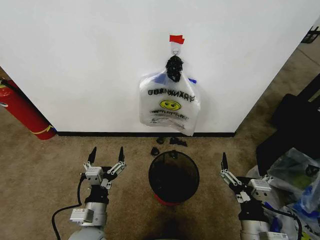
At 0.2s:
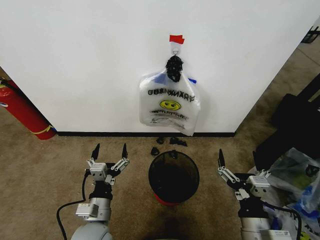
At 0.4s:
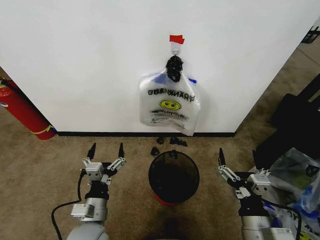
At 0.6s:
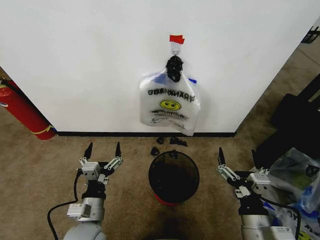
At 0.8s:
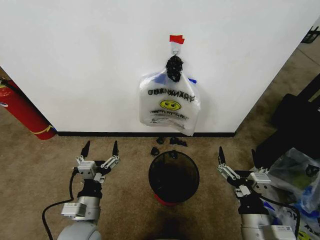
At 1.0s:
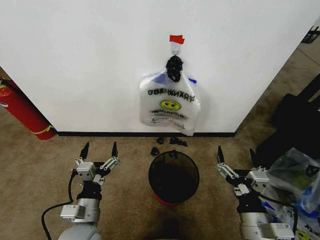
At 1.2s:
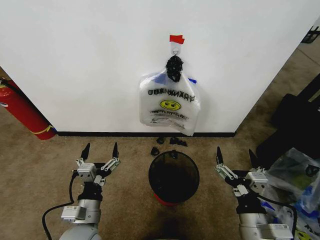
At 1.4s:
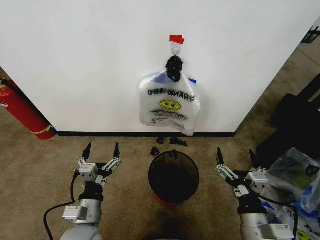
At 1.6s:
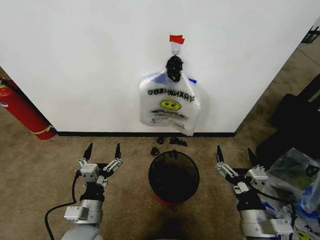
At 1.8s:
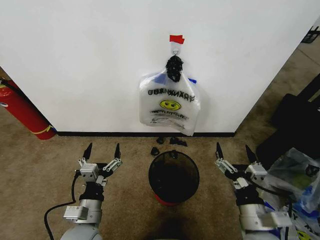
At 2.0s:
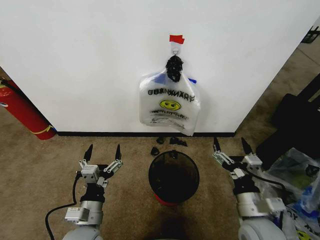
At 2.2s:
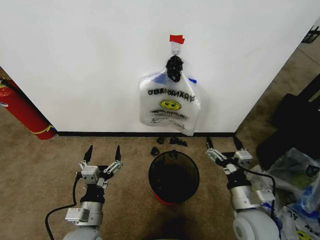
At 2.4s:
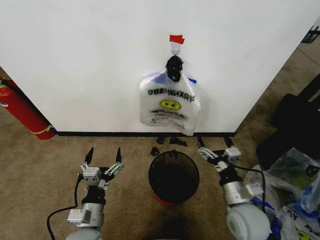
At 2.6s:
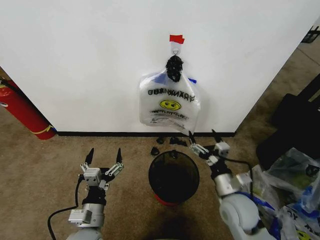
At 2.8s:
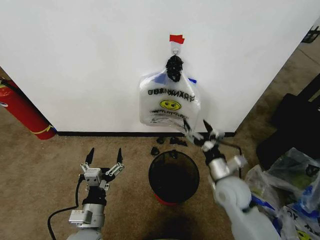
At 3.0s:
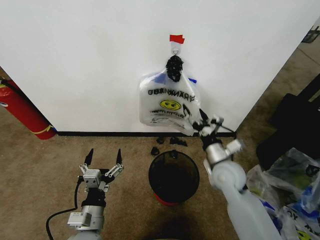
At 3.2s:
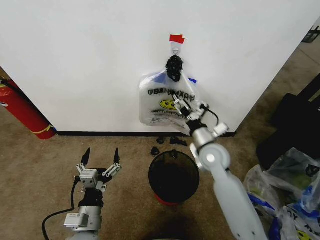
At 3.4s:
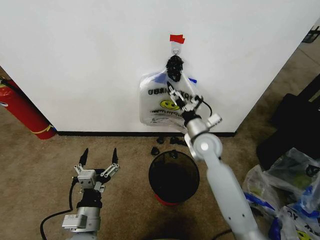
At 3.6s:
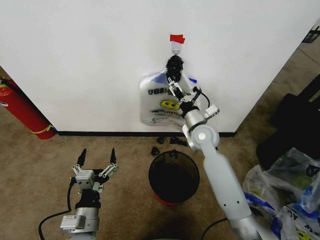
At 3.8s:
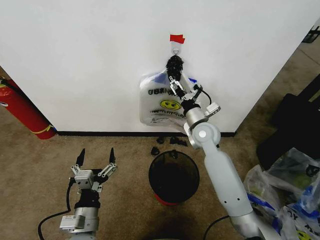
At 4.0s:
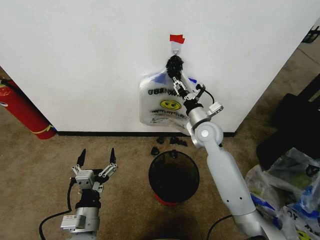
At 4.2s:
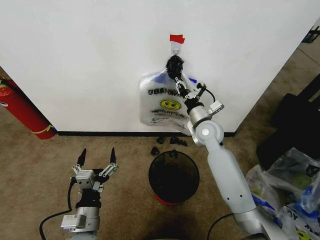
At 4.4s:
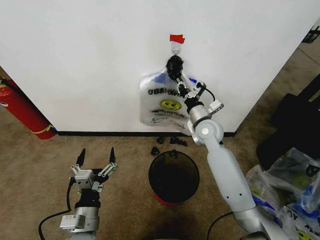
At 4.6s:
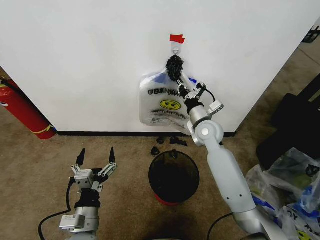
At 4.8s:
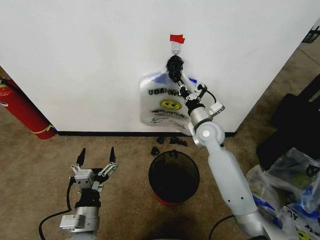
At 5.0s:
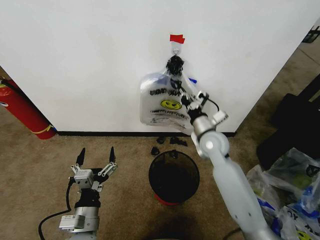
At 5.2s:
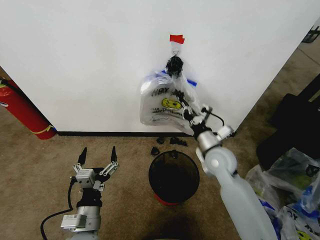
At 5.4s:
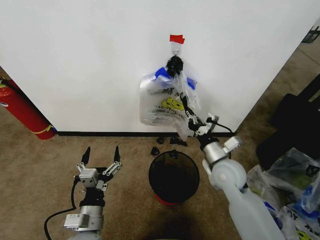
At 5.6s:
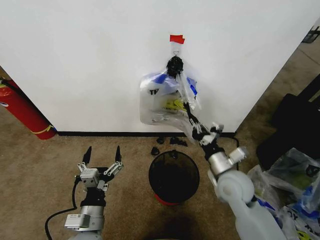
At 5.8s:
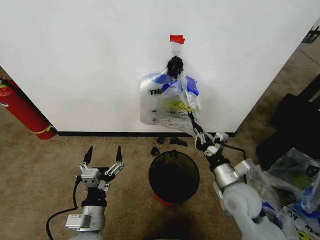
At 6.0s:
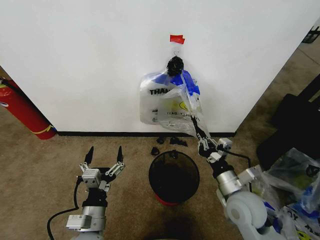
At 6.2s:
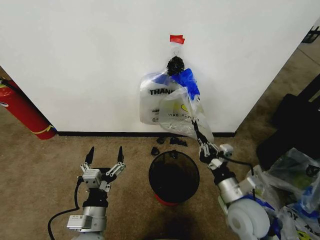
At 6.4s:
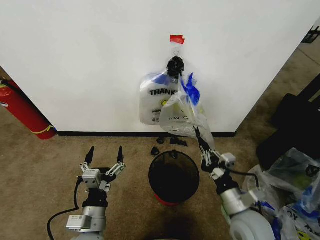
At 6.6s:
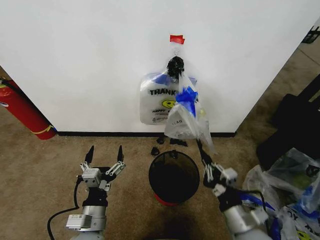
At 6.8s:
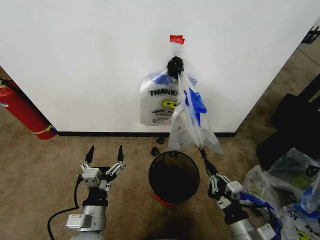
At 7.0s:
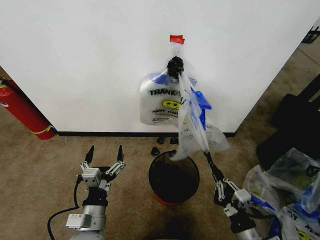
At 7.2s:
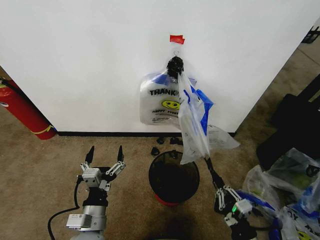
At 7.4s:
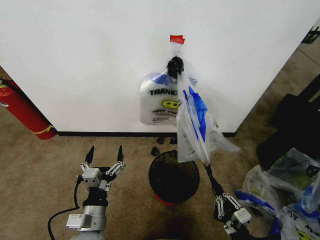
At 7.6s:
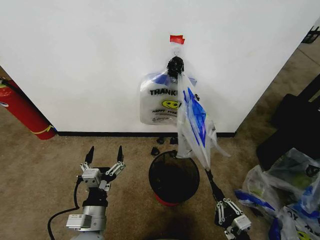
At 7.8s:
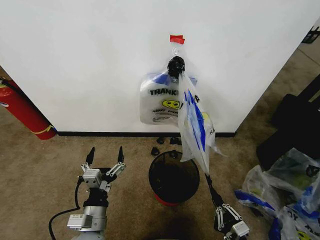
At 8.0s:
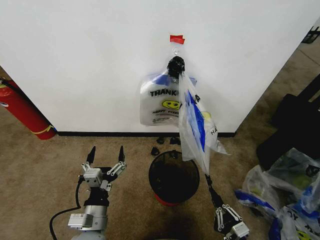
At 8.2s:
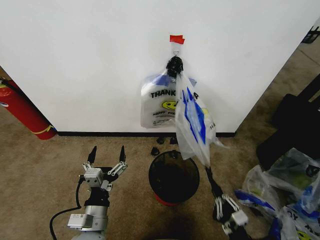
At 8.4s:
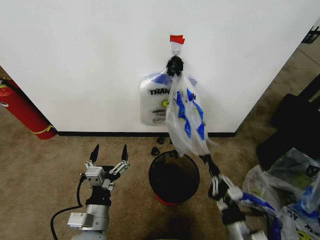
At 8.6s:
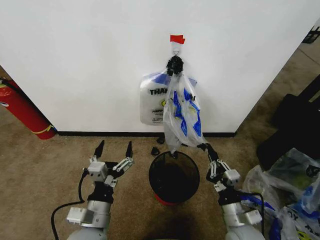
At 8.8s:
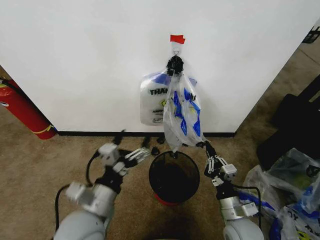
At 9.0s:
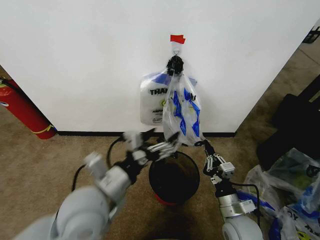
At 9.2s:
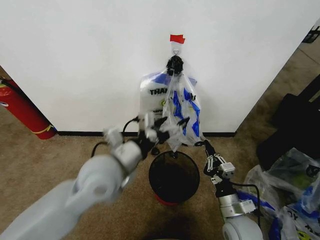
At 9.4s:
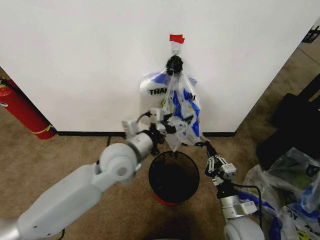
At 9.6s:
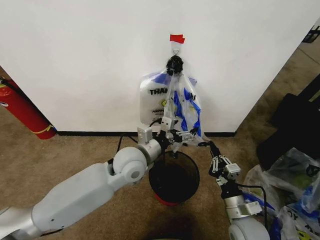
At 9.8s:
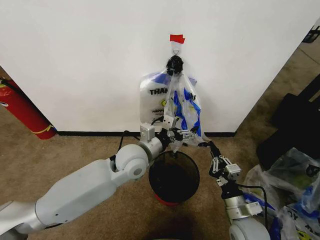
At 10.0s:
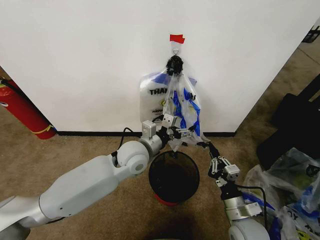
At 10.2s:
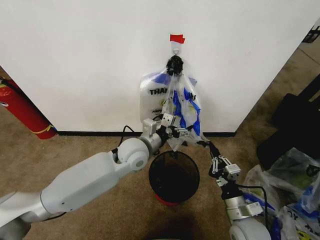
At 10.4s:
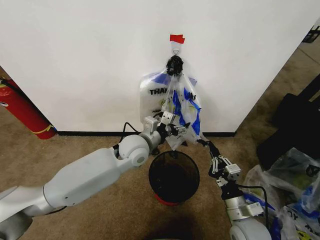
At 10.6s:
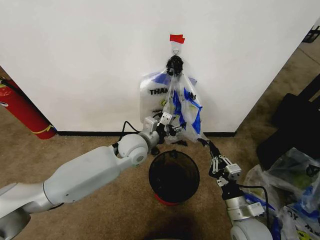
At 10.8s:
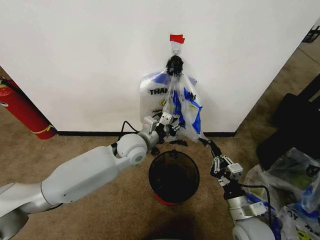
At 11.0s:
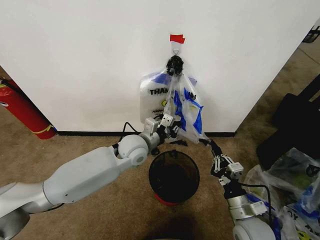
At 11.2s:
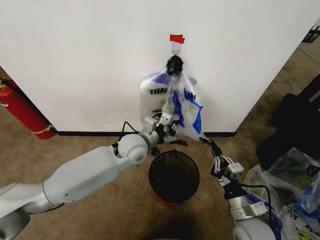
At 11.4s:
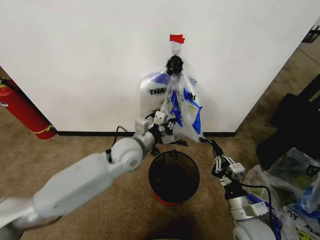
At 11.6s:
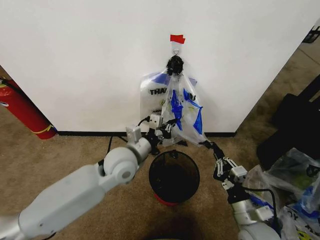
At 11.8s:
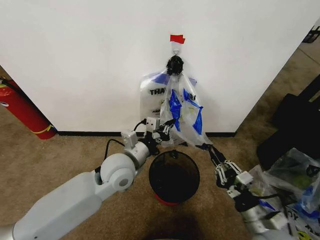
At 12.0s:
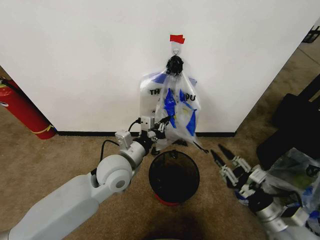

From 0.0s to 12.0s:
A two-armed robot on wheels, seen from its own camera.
Task of the whole recording: Pick up the garbage bag from the wall and place it over the trash bin.
From 1.6s to 3.0s: The right gripper heads forward, covering approximately 20 cm.
From 3.0s to 4.4s: The right gripper moves forward, approximately 15 cm, and closes.
From 4.4s to 6.0s: The right gripper heads backward, covering about 20 cm.
From 6.0s to 7.6s: The right gripper goes about 20 cm backward and downward.
From 7.6s to 9.0s: The right gripper heads forward, covering roughly 15 cm; the left gripper moves upward, roughly 15 cm.
From 9.0s to 10.4s: The left gripper heads forward, covering roughly 20 cm.
From 10.4s to 12.0s: The left gripper moves backward, some 10 cm, and closes. Meanwhile the right gripper travels to the right by roughly 10 cm.

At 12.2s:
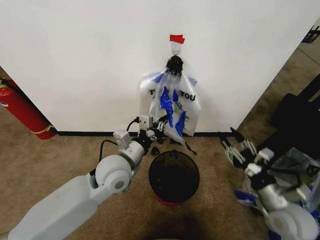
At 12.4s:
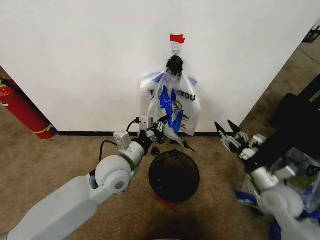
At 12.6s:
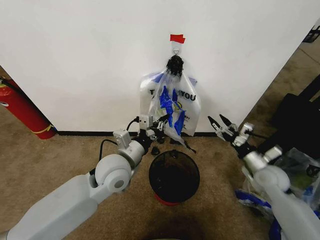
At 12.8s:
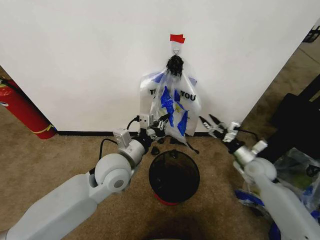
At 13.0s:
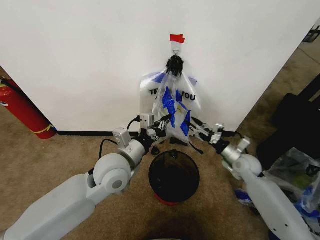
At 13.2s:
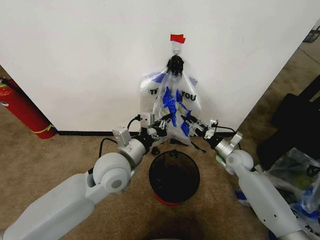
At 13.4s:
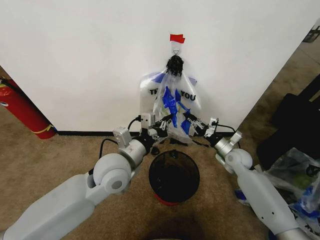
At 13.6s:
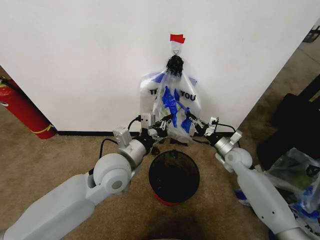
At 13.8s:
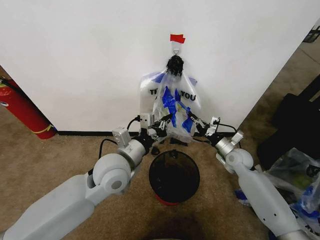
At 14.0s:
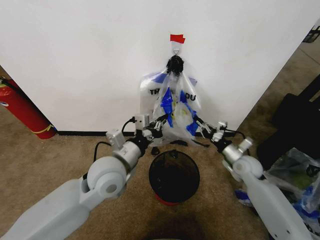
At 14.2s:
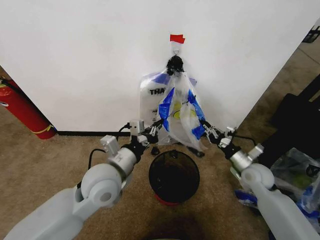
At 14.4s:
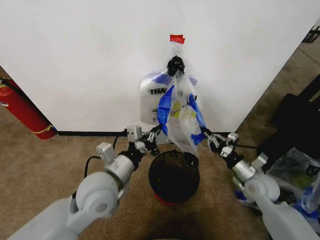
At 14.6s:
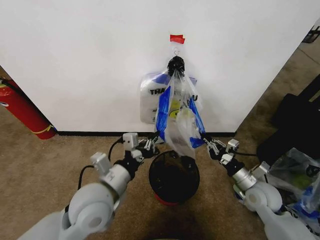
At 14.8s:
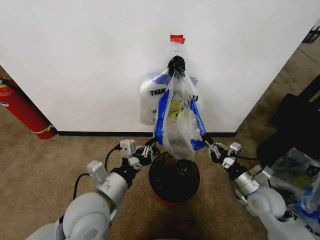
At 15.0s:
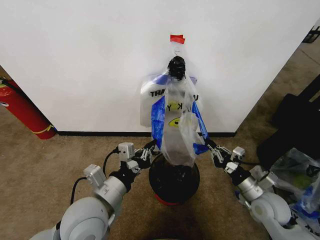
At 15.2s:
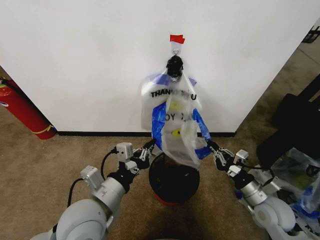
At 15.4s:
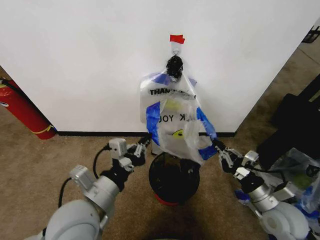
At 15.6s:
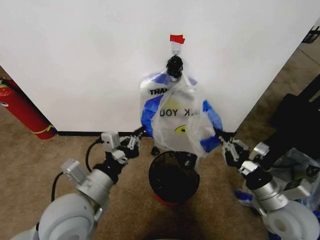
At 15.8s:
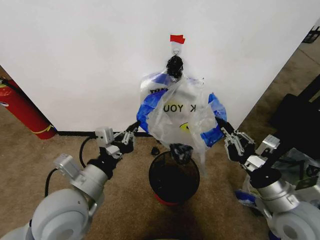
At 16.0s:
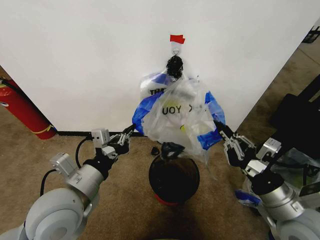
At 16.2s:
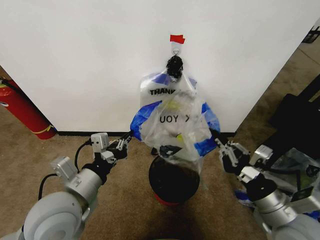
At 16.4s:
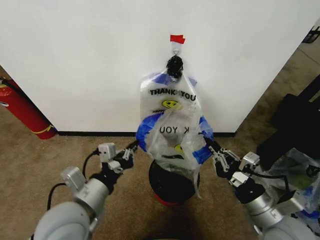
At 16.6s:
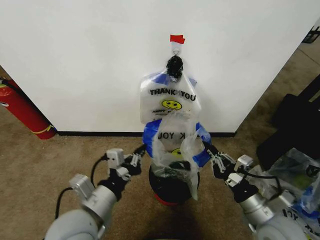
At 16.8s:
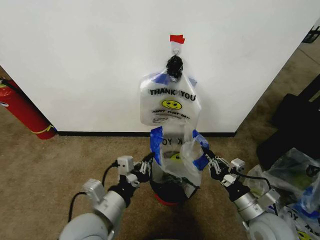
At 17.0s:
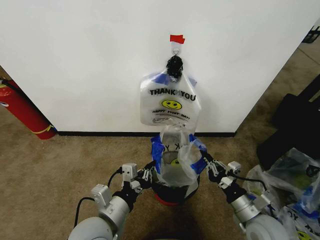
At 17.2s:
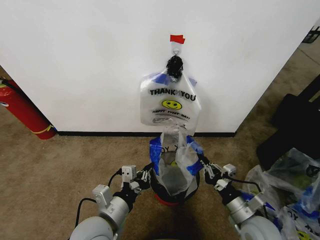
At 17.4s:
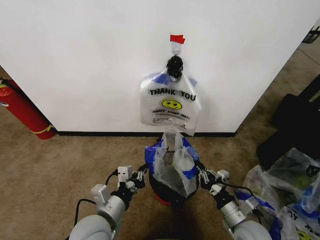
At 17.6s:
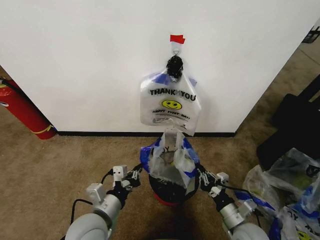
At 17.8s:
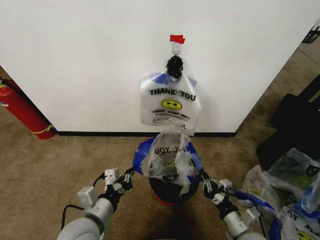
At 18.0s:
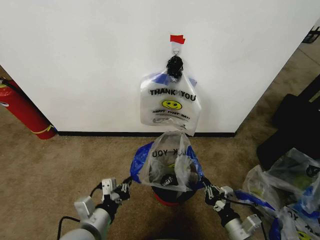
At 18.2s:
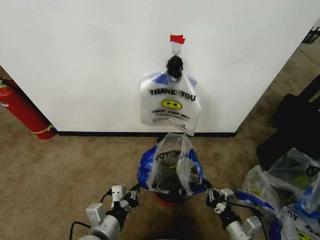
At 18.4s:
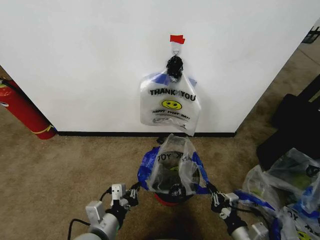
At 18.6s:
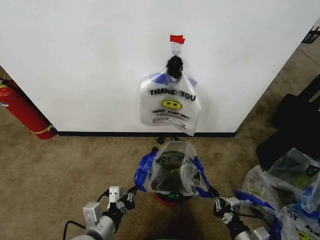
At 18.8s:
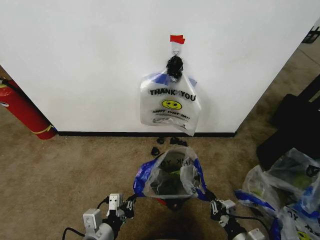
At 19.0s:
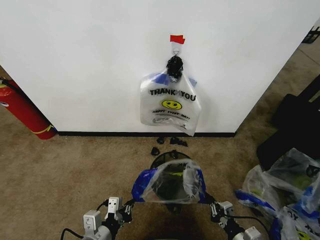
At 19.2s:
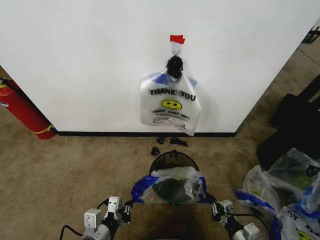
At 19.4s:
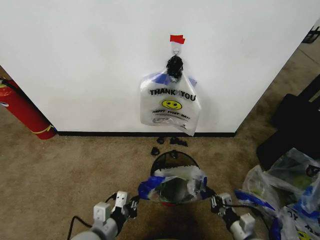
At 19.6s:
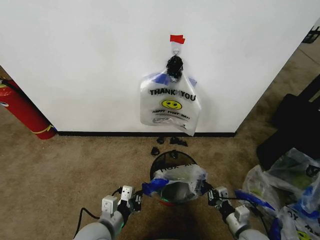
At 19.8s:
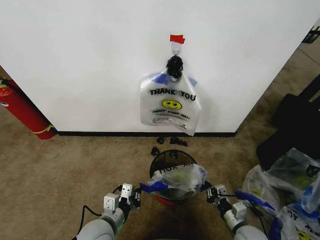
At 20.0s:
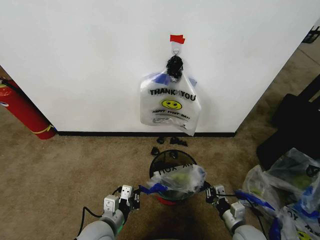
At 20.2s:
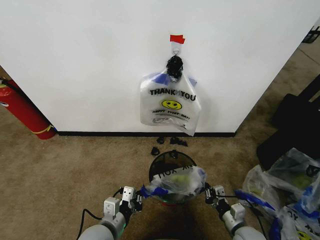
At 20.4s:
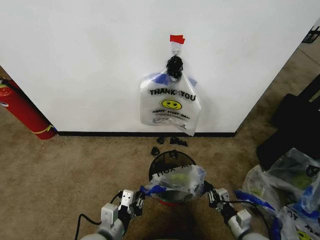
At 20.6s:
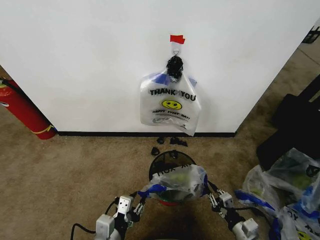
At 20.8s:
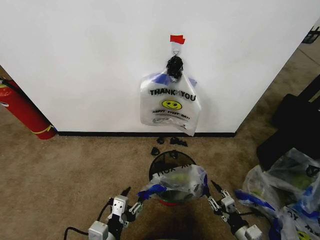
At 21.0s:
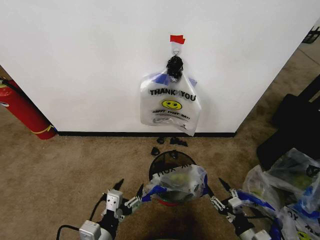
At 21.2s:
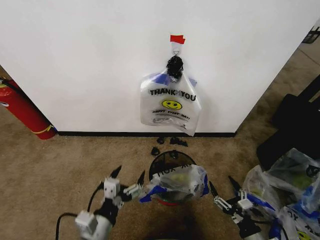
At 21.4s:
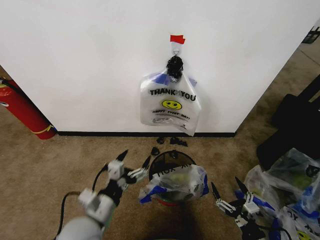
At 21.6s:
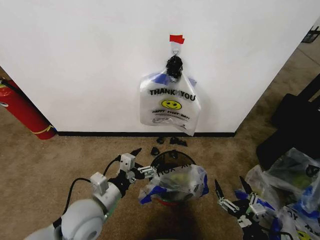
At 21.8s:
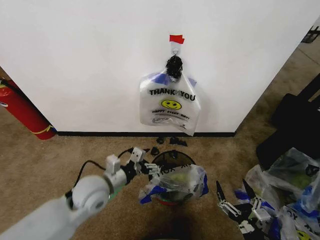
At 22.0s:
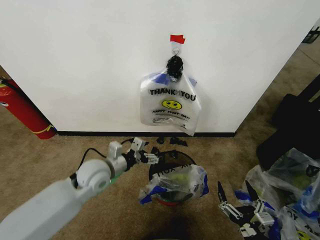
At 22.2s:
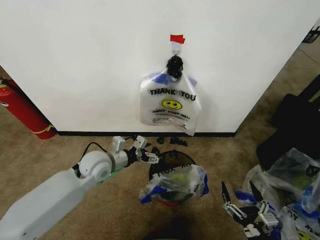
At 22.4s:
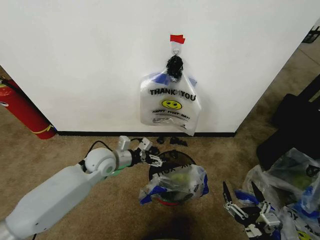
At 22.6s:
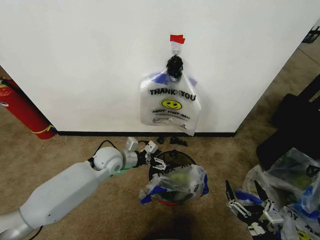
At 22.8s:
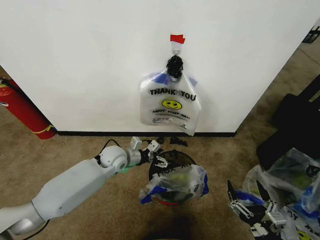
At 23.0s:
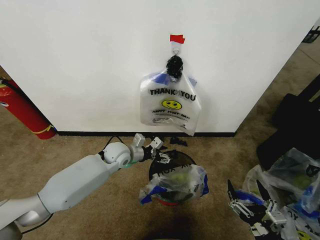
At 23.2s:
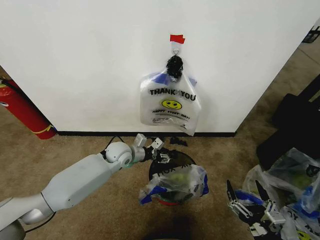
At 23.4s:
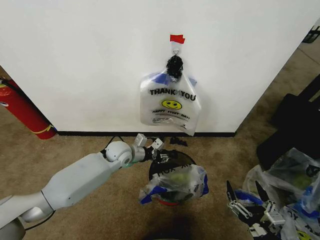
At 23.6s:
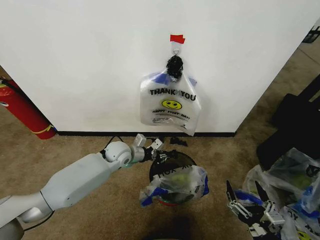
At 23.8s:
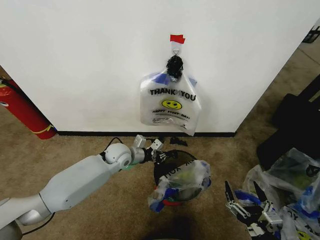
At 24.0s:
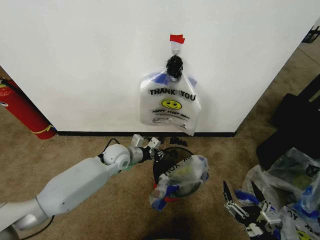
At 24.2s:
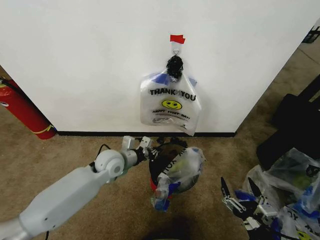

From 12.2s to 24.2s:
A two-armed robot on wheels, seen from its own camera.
Task of the whole recording: Pick up the garbage bag from the wall and place it over the trash bin.
From 12.2s to 13.8s: The right gripper moves forward, some 25 cm, and closes its fingers.
From 13.8s to 15.2s: The right gripper is displaced backward by approximately 20 cm. Meanwhile the left gripper shifts approximately 10 cm backward.
From 15.2s to 16.6s: The right gripper goes roughly 10 cm backward and upward.
From 16.6s to 18.2s: Both grippers travel together downward, roughly 10 cm.
From 18.2s to 19.8s: The left gripper ends up approximately 5 cm from where it was; the right gripper travels forward by roughly 5 cm.
From 19.8s to 21.2s: Both grippers move backward, approximately 5 cm. The left gripper opens. The right gripper opens.
From 21.2s to 22.6s: The right gripper goes about 10 cm upward and backward, while the left gripper heads forward, covering approximately 30 cm.
From 22.6s to 24.2s: The left gripper closes its fingers.
